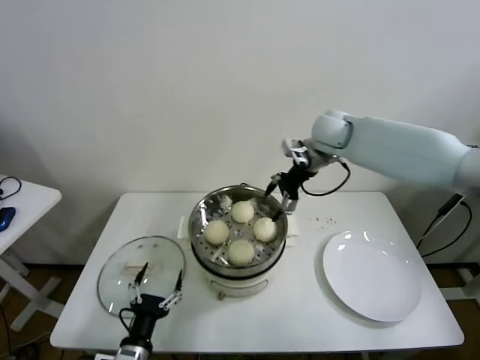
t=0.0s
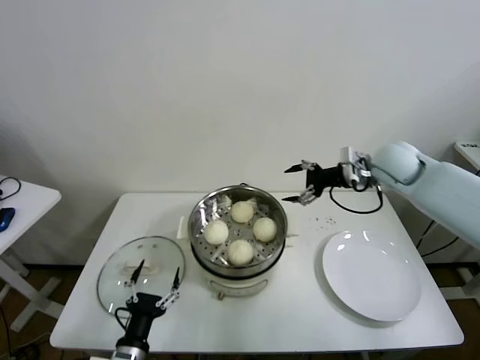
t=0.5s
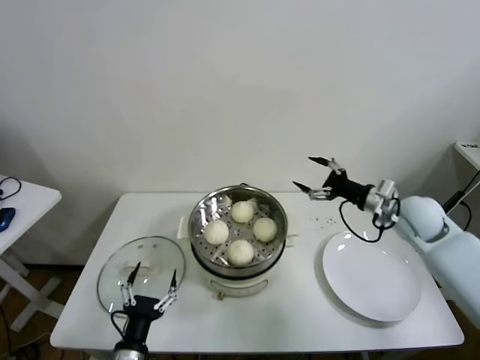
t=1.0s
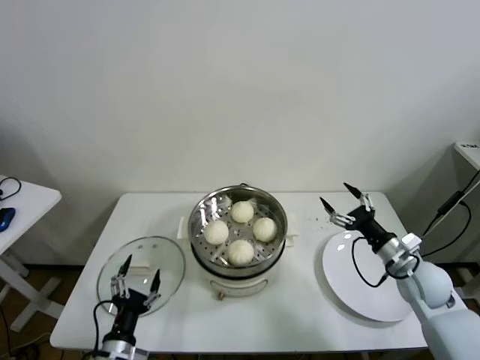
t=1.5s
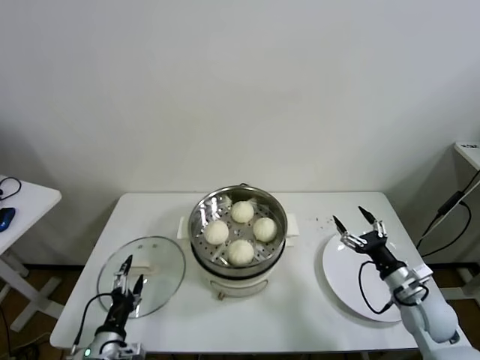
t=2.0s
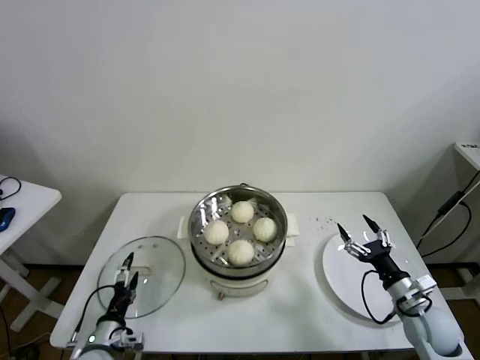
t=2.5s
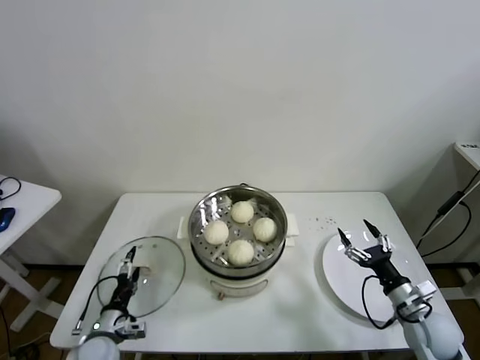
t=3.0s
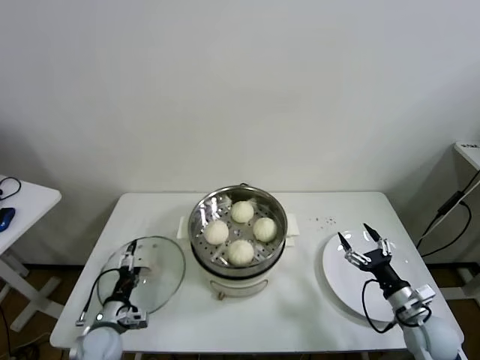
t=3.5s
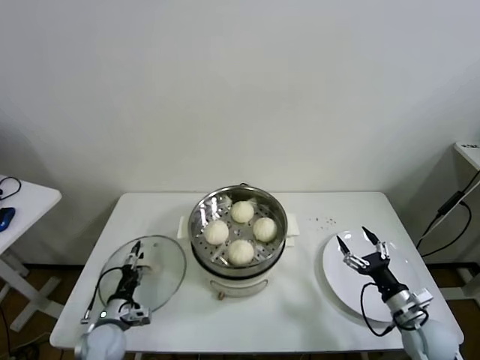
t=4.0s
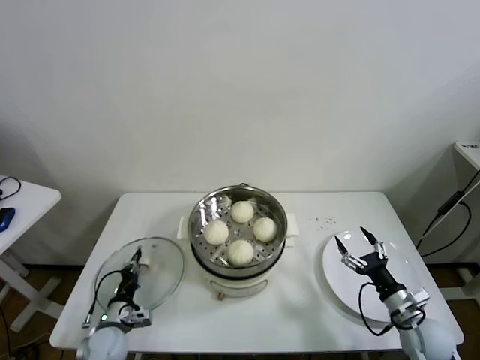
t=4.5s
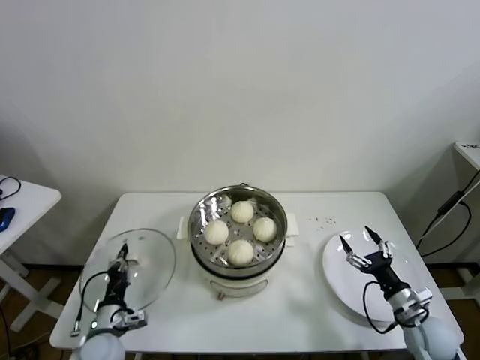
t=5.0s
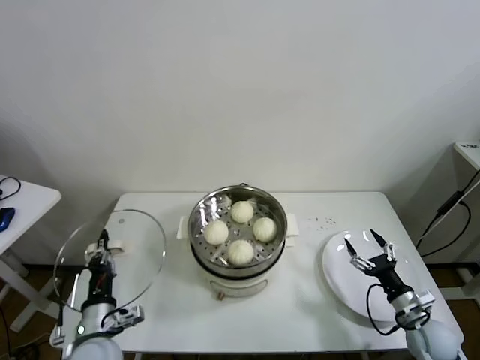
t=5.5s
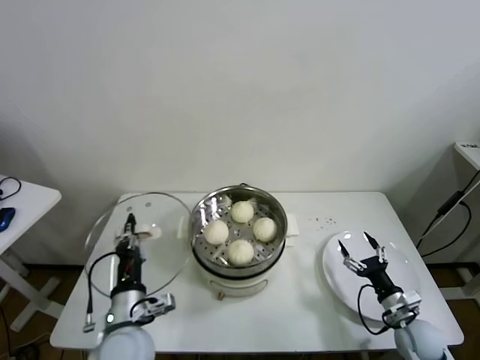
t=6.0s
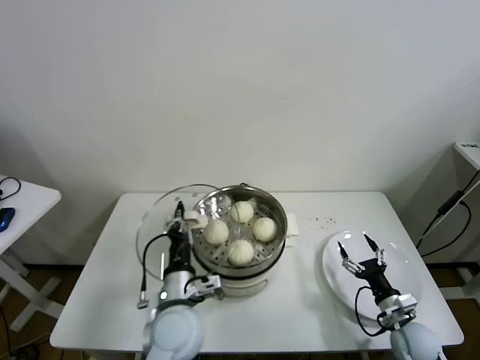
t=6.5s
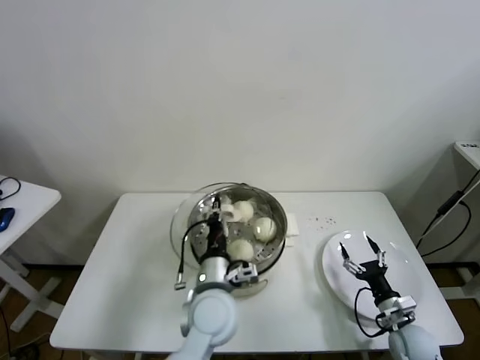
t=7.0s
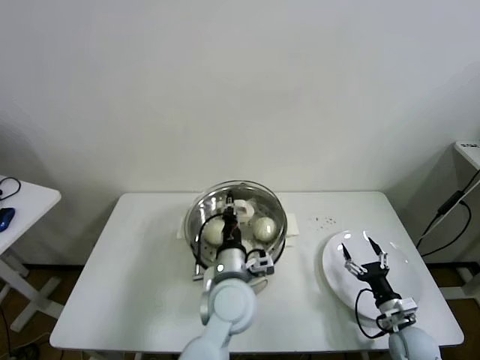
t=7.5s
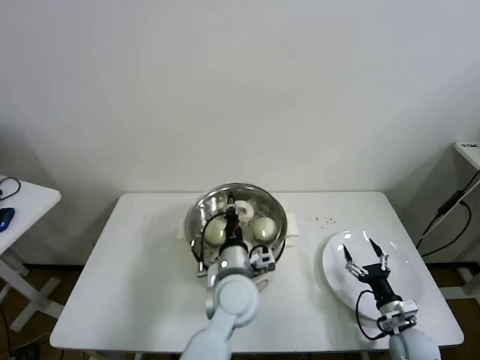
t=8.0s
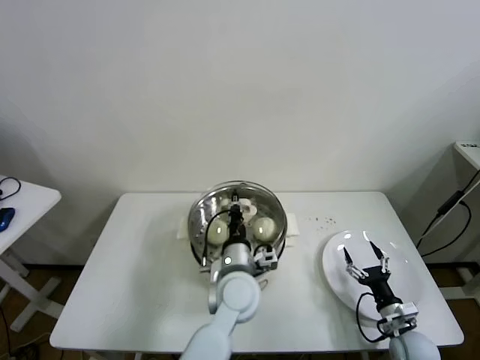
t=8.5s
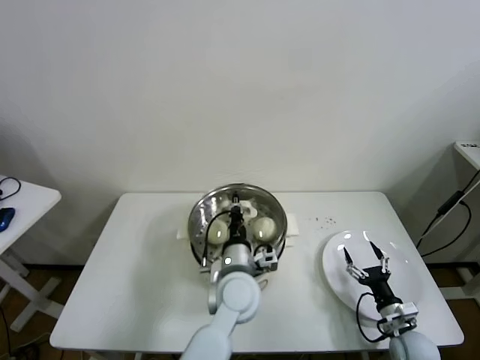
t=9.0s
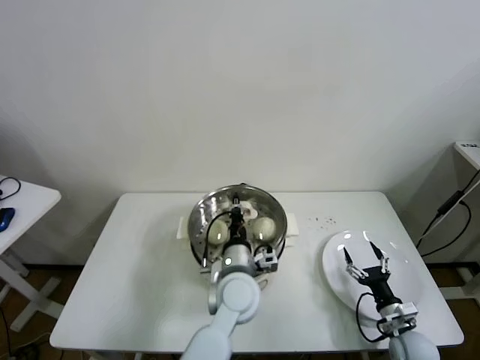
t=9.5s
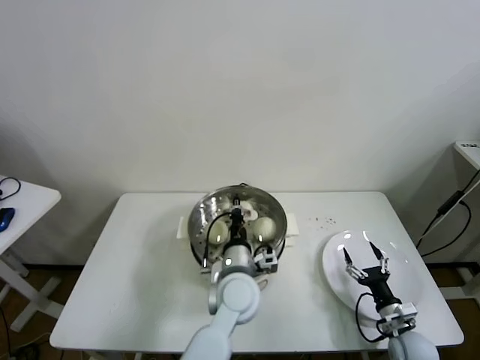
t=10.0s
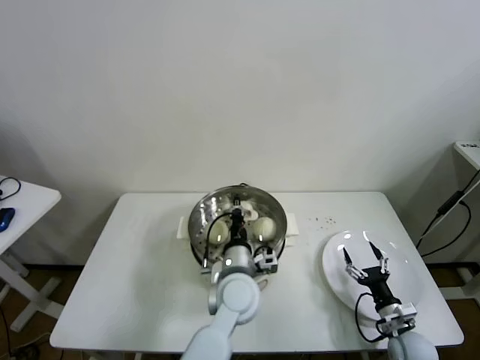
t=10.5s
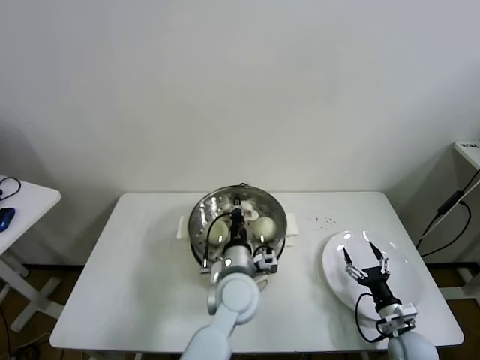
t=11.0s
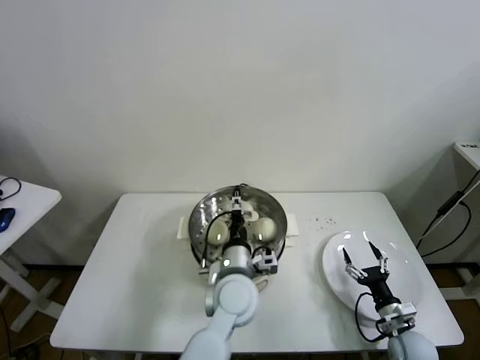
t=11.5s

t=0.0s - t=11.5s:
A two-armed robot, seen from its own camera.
Task of the whole recording: take steamed baozi put them in steamer.
Step, t=0.0s - t=4.0s: Grasp the pot lid with left gripper.
t=0.0s - t=2.0s: The right gripper shifts approximately 50 cm backward, downward and to the right. The left gripper heads to the left, covering approximately 5 cm.
t=2.0s - t=4.0s: The right gripper changes place by some 5 cm; the left gripper moves forward, some 10 cm.
t=4.0s - t=6.0s: The left gripper is displaced upward and to the right by about 20 cm, and closes up.
t=6.0s - t=7.5s: The left gripper goes roughly 20 cm to the right and forward.
t=7.5s - t=9.5s: The grippers stay close to where they were, moving slightly.
t=9.5s - t=11.5s: The left gripper opens up.

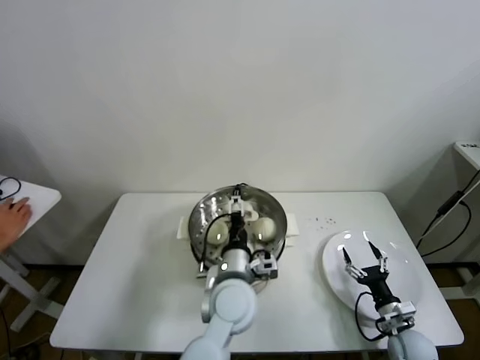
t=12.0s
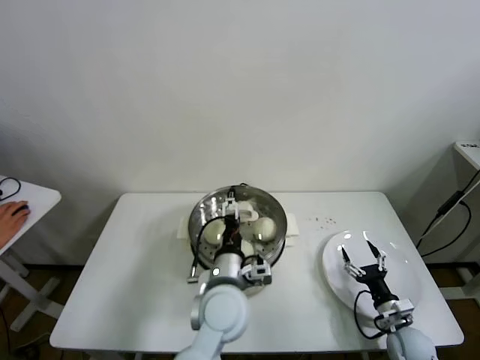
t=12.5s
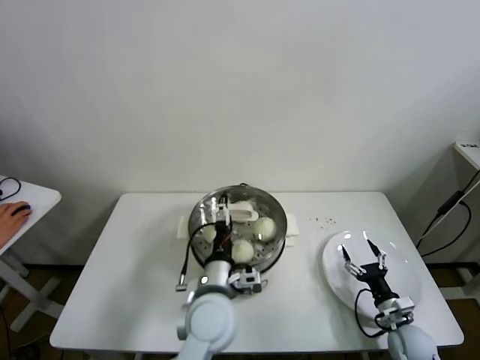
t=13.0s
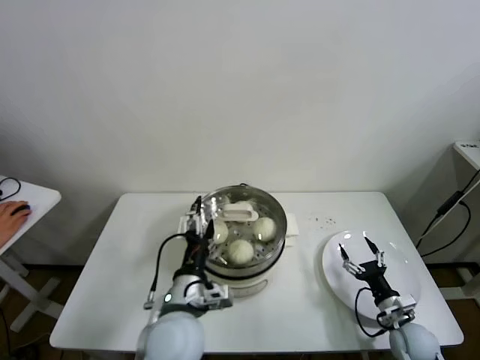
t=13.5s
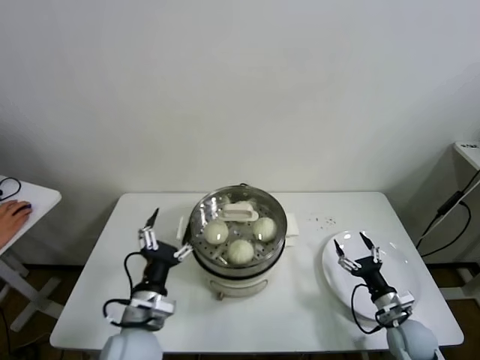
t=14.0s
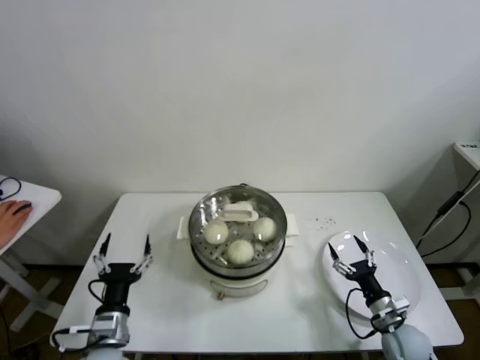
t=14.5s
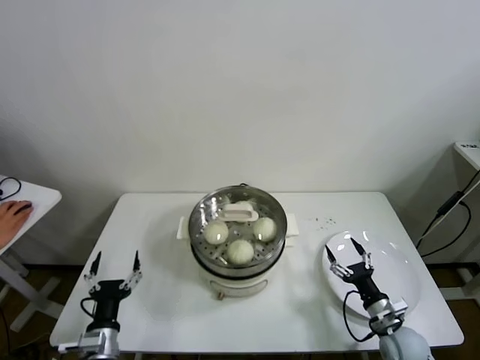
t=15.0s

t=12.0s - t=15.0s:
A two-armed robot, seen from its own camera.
Task of the whole recording: take steamed baozi put them in steamer.
t=12.0s - t=13.5s: The left gripper is displaced to the left and backward by approximately 10 cm.
t=13.5s - t=15.0s: The left gripper goes roughly 25 cm to the left and downward.

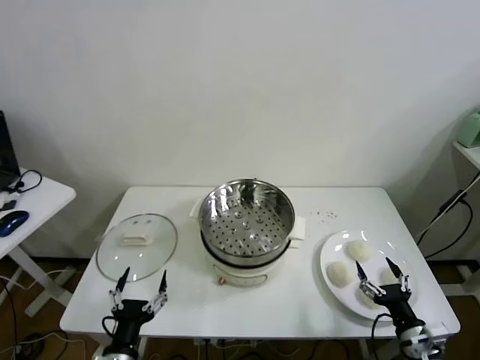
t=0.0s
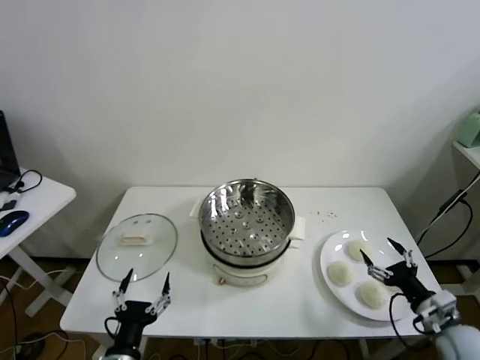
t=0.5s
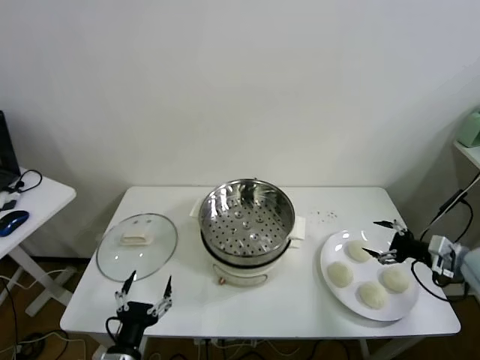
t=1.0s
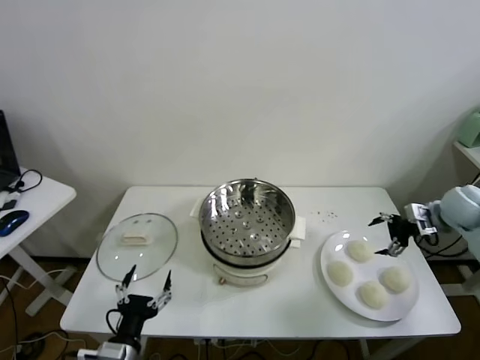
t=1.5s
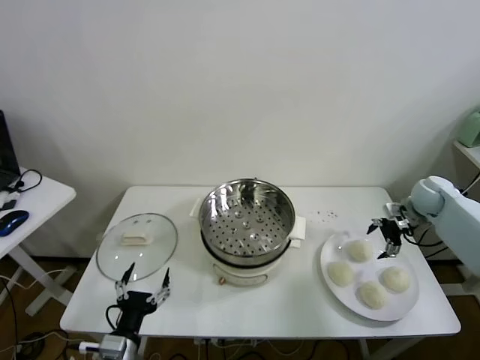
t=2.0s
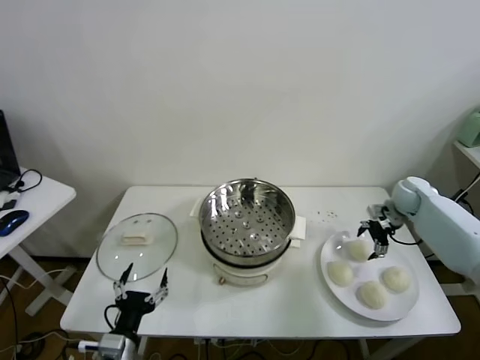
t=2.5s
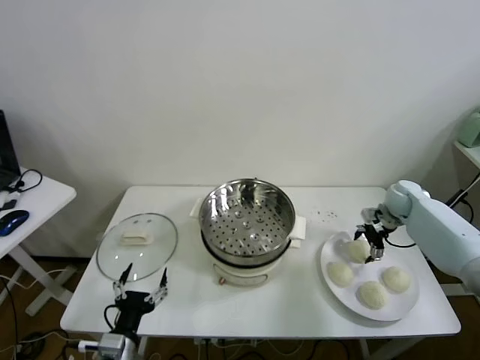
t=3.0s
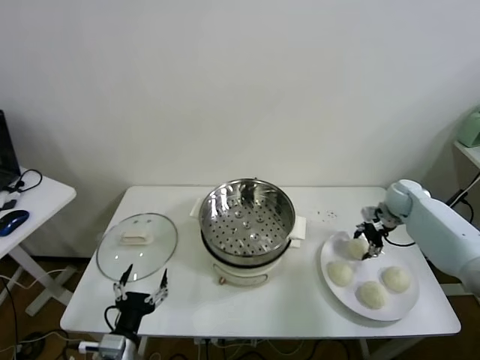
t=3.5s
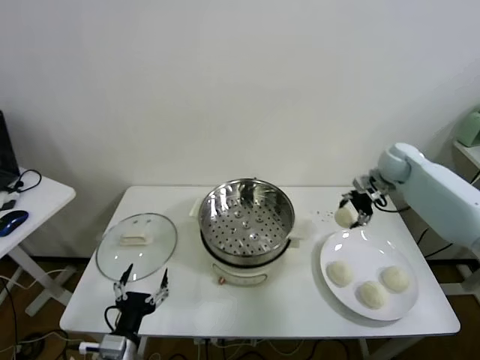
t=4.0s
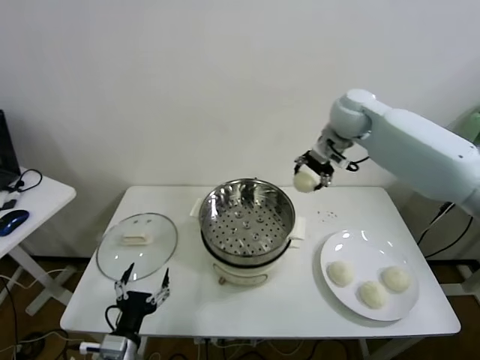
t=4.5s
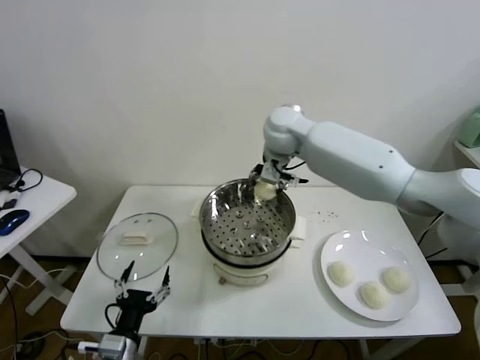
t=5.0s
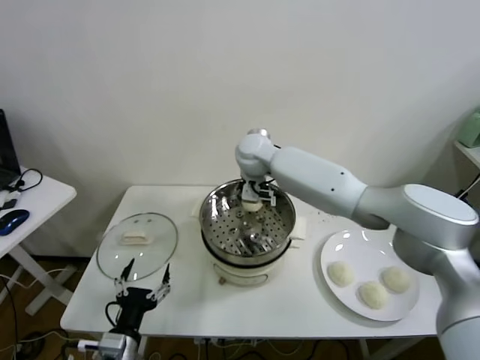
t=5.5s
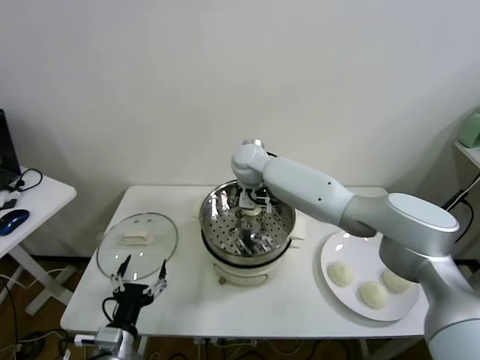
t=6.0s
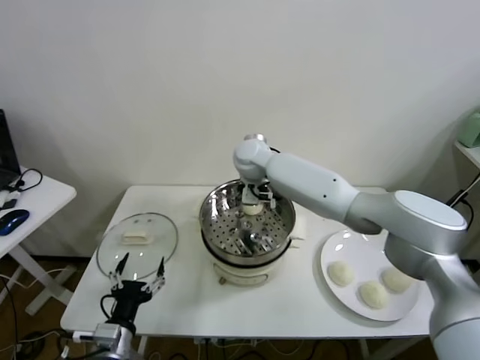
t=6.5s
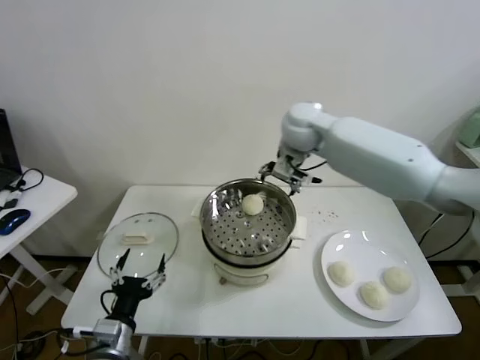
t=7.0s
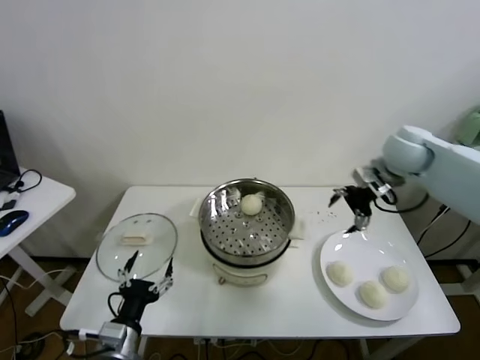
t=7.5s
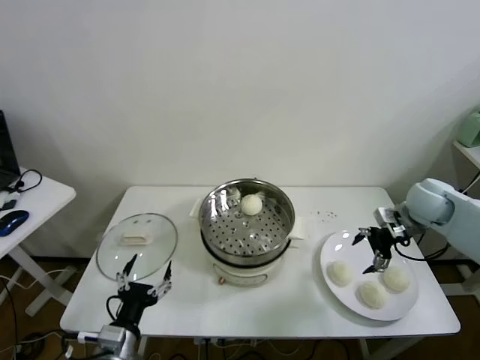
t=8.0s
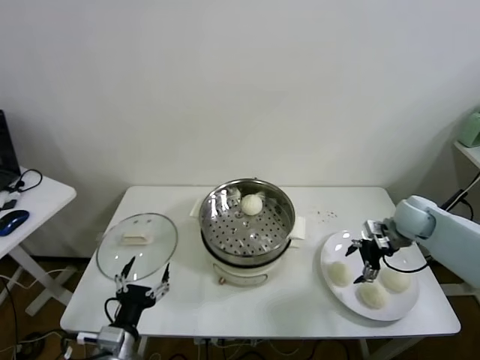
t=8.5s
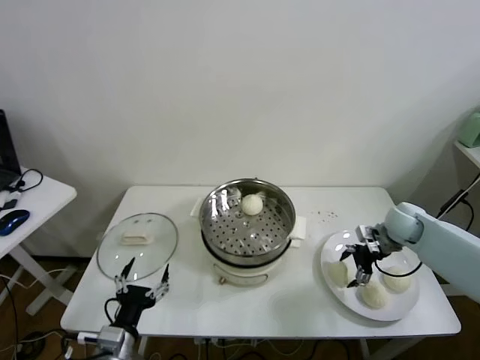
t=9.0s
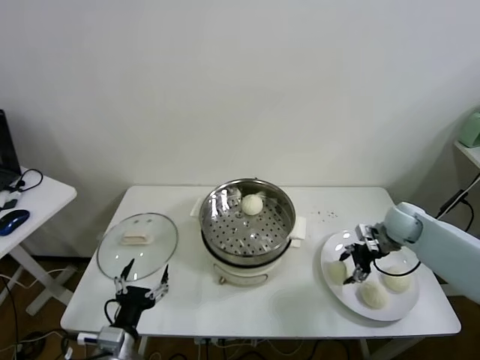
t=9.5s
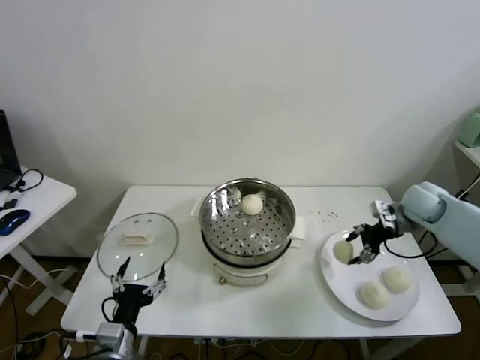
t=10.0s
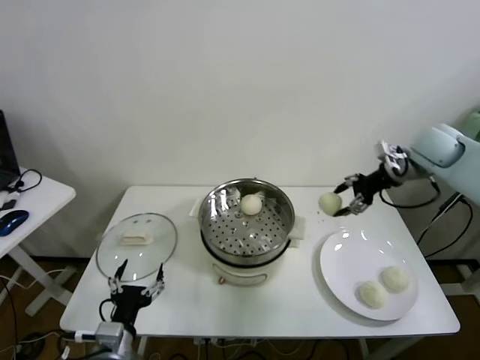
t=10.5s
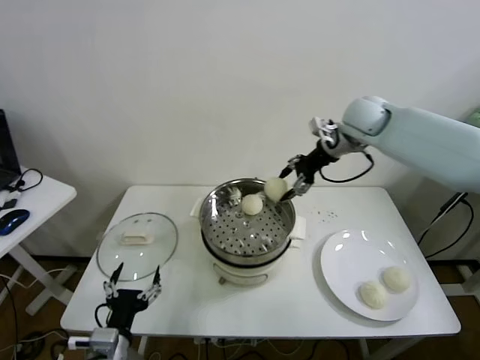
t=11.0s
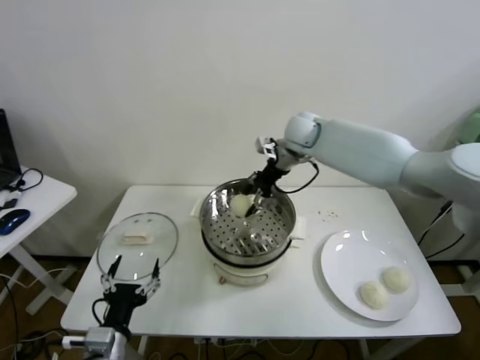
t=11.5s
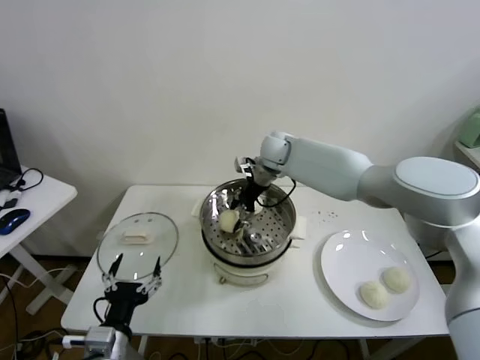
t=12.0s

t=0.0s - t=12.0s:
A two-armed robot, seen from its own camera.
Task of the whole recording: take steamed baozi put them in steamer.
Step, t=0.0s - t=3.0s: Grasp the baozi in the plate with right gripper.
Step, t=3.5s - t=6.0s: Place the baozi on the steamer with right gripper.
Step, t=6.5s - t=9.0s: Grasp the baozi in the plate with right gripper.
t=2.0s - t=4.0s: The right gripper travels upward, to the left and forward by roughly 15 cm, and closes.
t=4.0s - t=6.0s: The right gripper travels to the left by some 35 cm.
t=6.0s - t=8.0s: The right gripper heads to the right, covering roughly 40 cm, and opens its fingers.
t=8.0s - t=10.0s: The right gripper travels downward and back again, approximately 10 cm each way, and closes up.
t=10.0s - t=12.0s: The right gripper shifts roughly 35 cm to the left.
